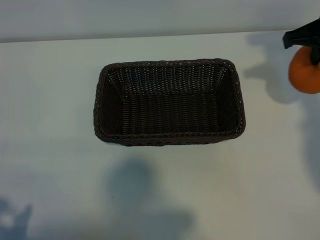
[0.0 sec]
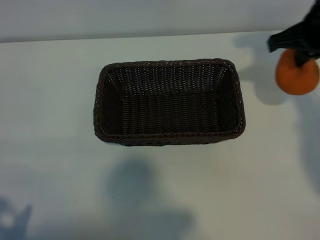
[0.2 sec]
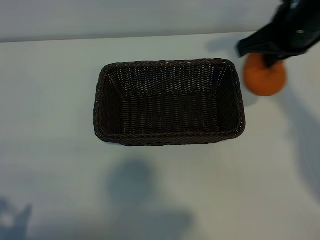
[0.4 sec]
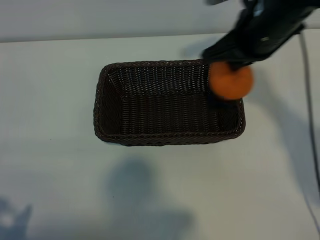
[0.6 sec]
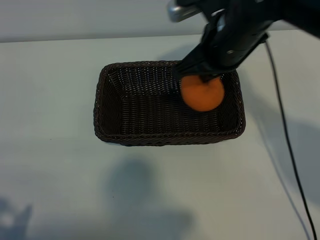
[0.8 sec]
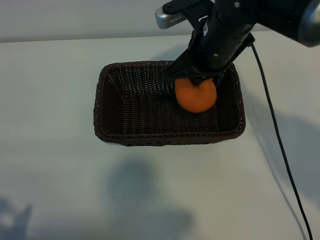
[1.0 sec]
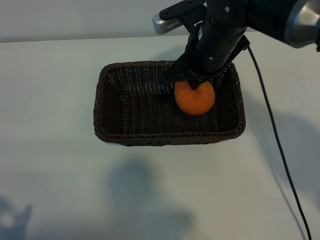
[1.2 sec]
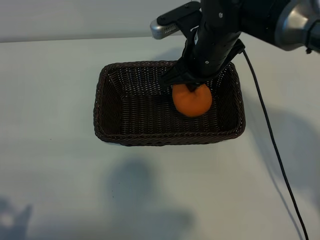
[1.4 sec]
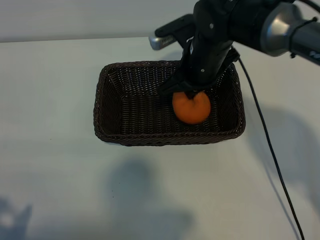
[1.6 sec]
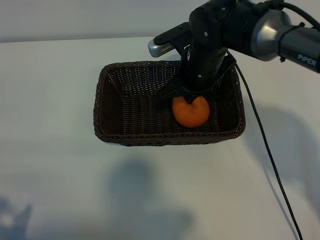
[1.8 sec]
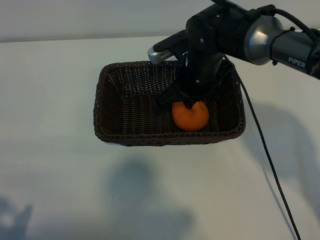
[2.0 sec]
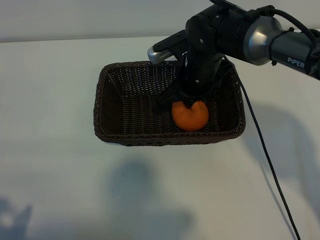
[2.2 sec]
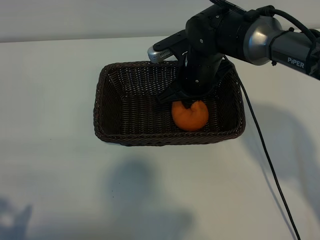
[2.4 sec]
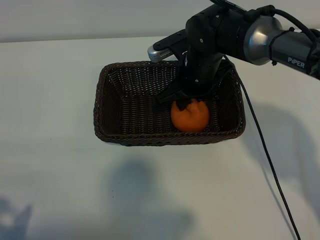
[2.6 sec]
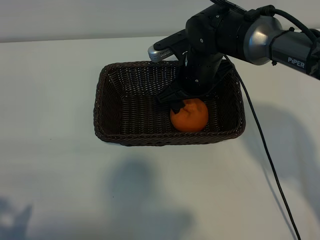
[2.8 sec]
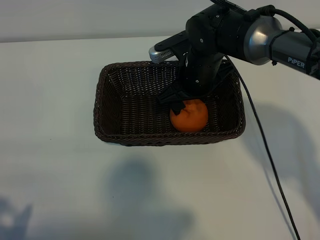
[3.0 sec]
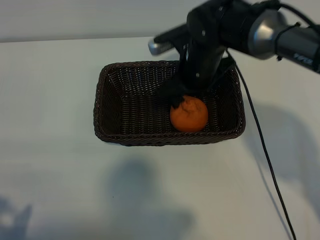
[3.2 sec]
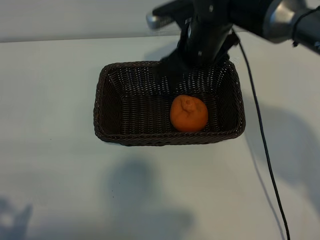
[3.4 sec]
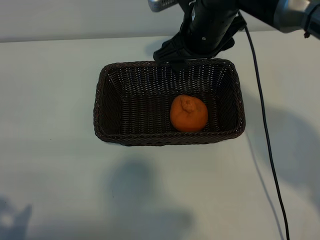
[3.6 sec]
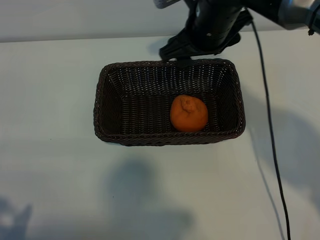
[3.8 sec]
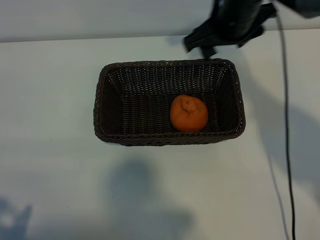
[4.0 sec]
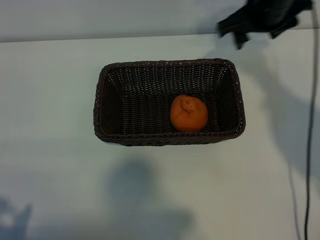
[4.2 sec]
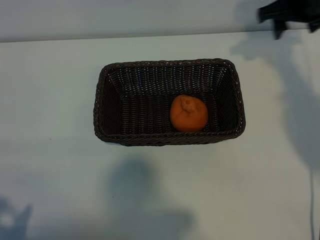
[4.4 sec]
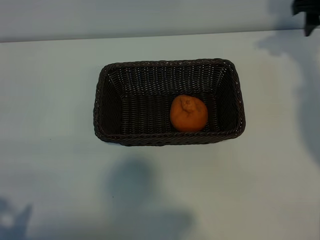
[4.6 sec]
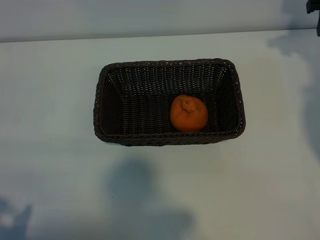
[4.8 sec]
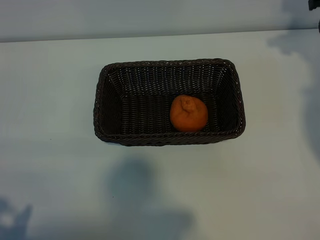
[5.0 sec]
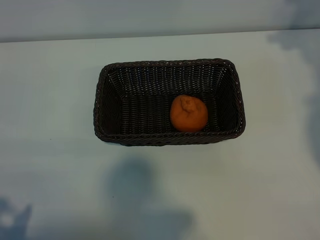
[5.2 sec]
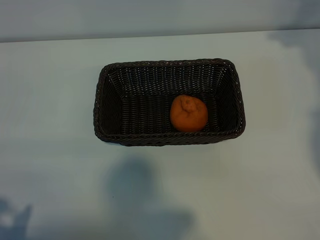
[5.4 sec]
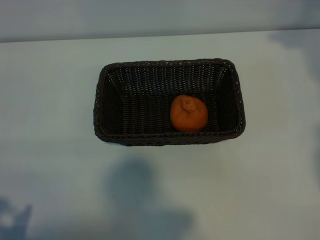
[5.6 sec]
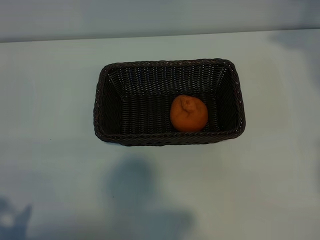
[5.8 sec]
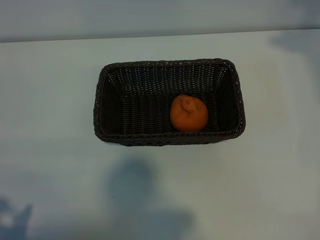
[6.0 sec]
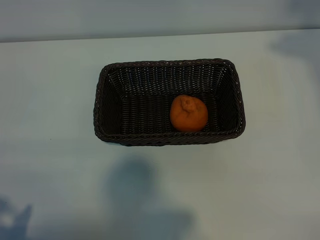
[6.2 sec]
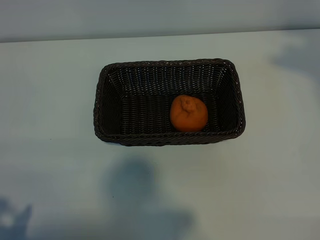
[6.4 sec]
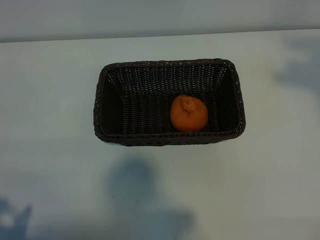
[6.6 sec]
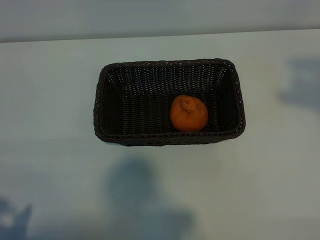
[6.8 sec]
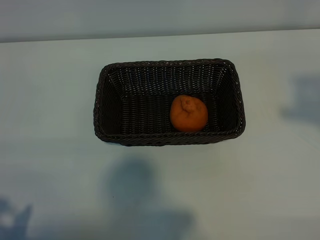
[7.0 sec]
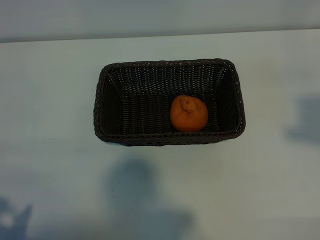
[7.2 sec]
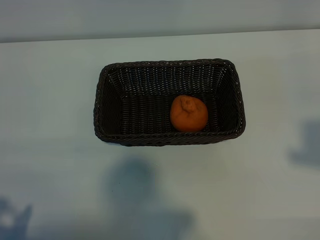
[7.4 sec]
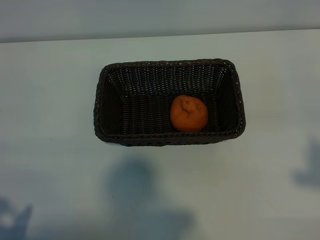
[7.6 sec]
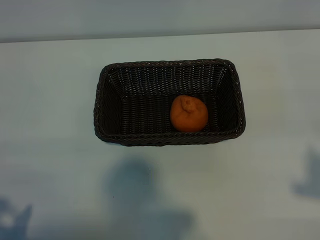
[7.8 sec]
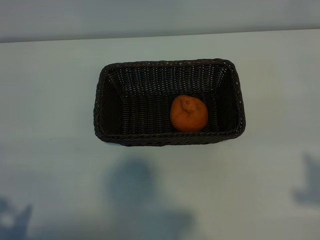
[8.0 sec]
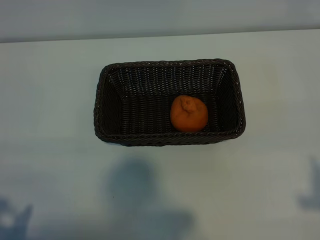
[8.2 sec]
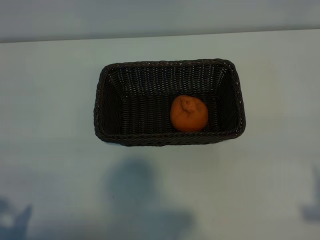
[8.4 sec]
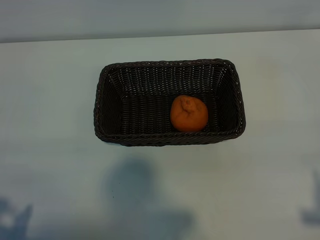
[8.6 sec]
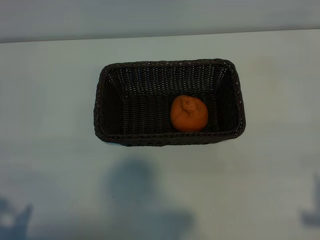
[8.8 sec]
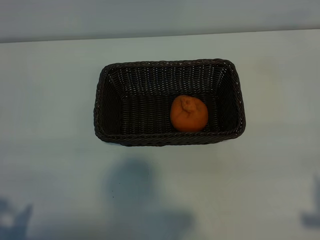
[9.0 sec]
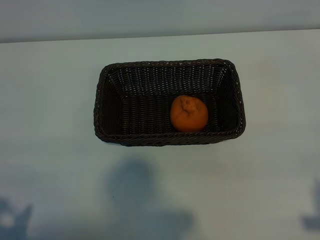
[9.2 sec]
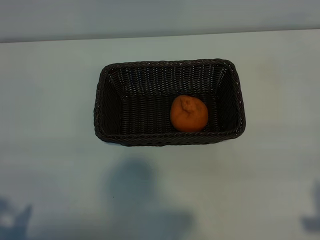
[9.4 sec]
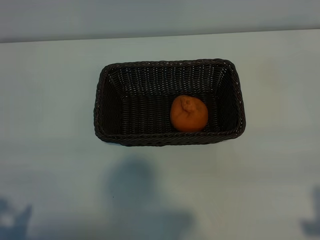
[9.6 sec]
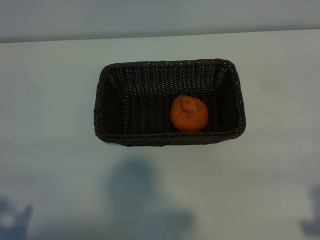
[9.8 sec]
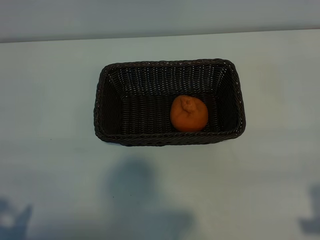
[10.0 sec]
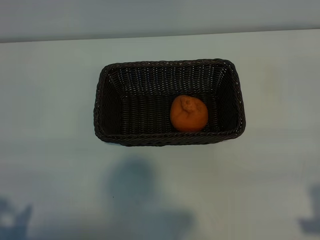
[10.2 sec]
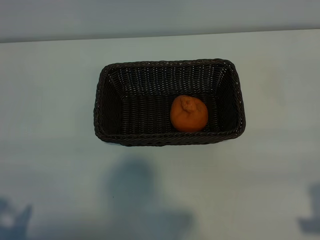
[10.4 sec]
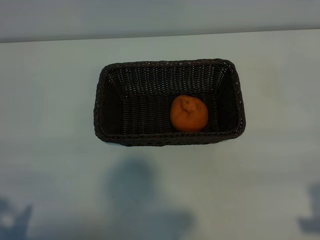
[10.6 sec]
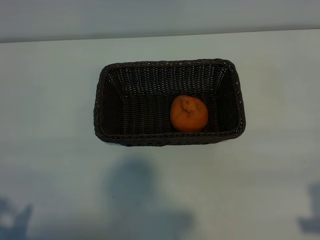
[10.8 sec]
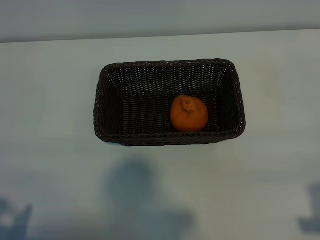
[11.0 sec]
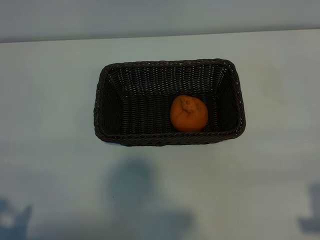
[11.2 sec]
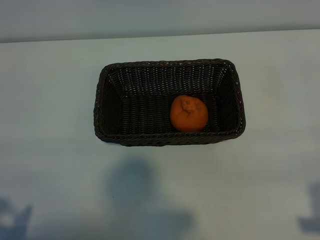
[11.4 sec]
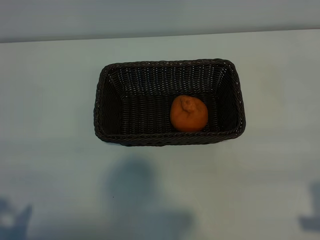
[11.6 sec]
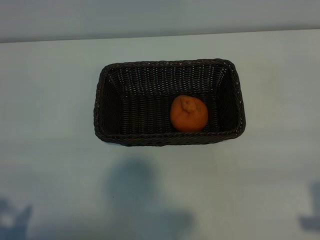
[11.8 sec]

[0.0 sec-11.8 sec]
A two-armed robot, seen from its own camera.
Task of the whole recording: pick up the orange and put it into the basket.
Step, 0.0 sec to 2.6 sec: Place the orange in the basket with right gripper.
